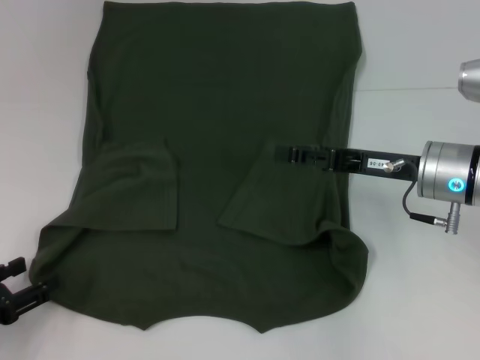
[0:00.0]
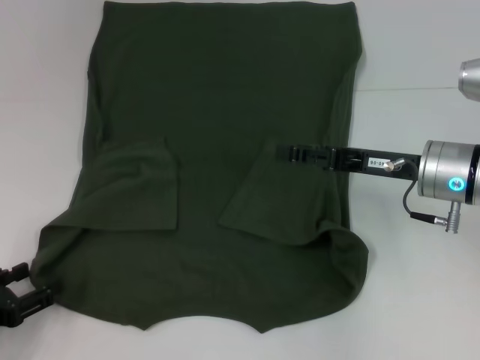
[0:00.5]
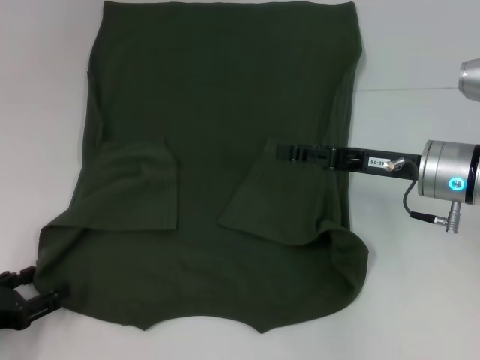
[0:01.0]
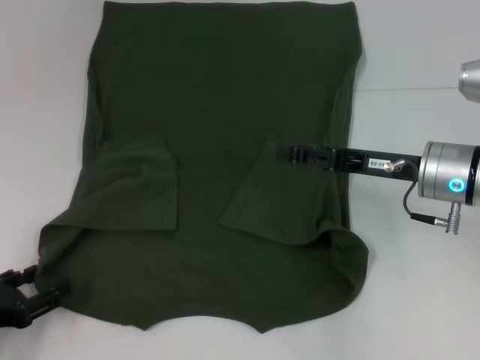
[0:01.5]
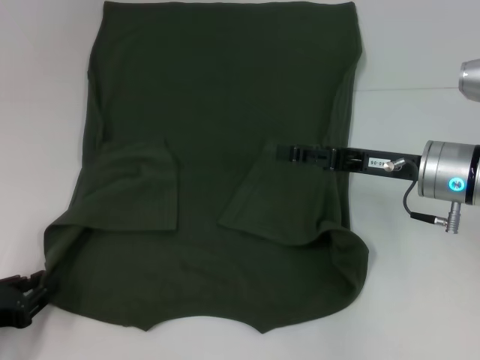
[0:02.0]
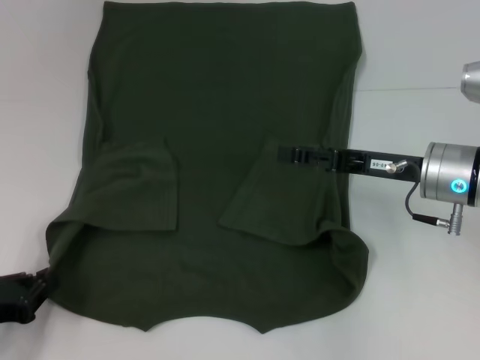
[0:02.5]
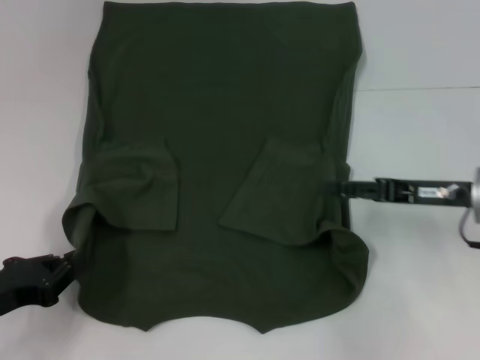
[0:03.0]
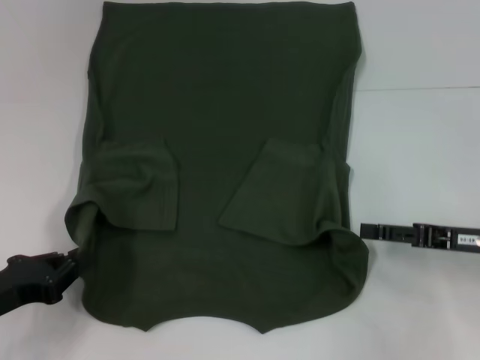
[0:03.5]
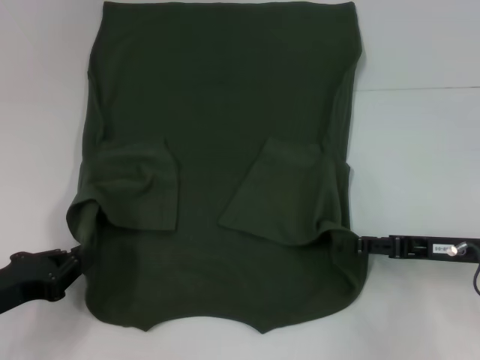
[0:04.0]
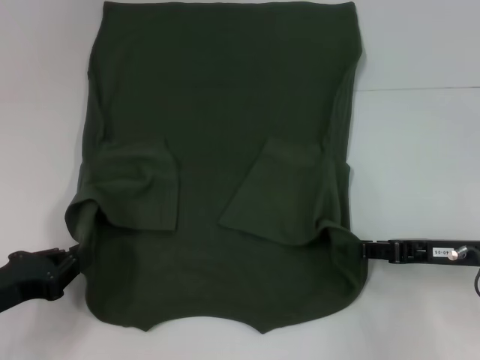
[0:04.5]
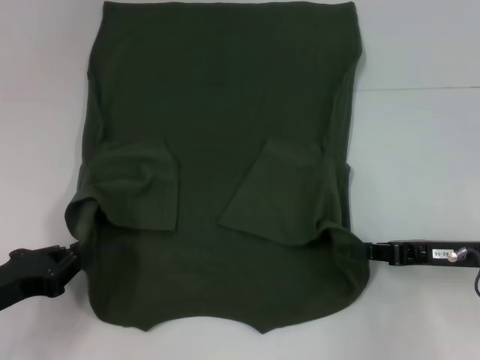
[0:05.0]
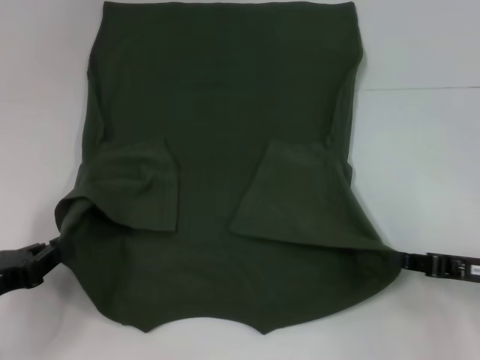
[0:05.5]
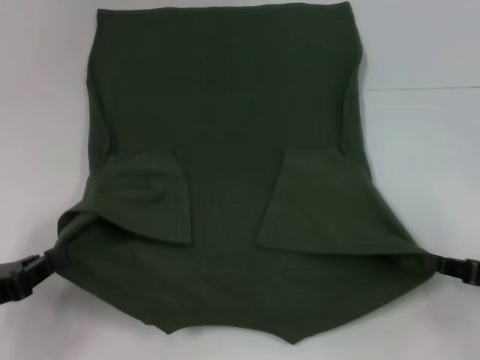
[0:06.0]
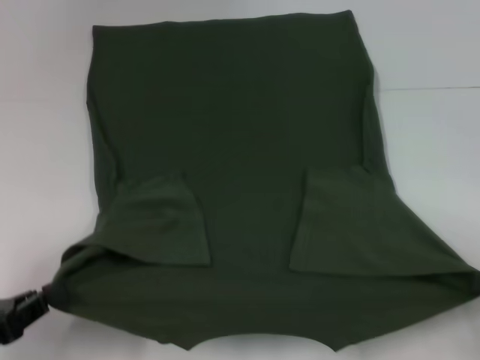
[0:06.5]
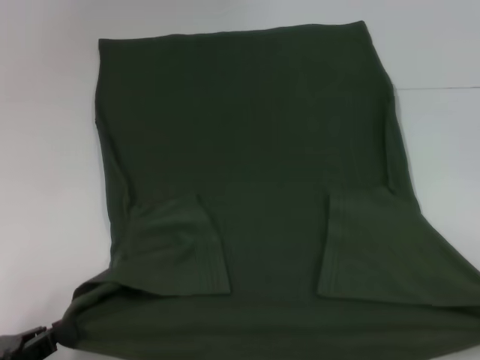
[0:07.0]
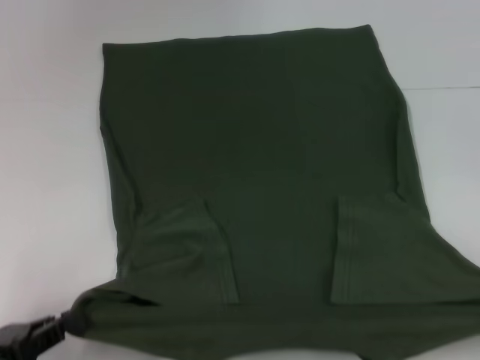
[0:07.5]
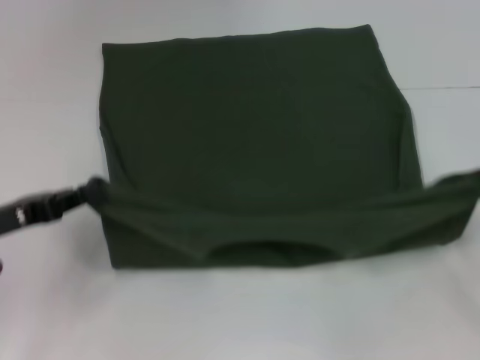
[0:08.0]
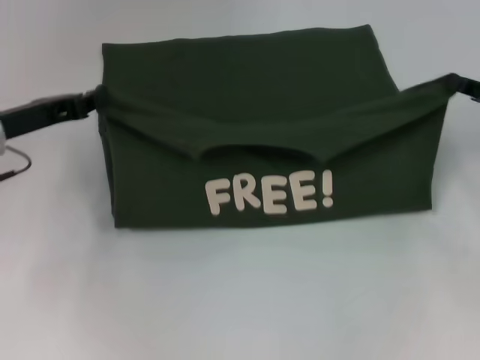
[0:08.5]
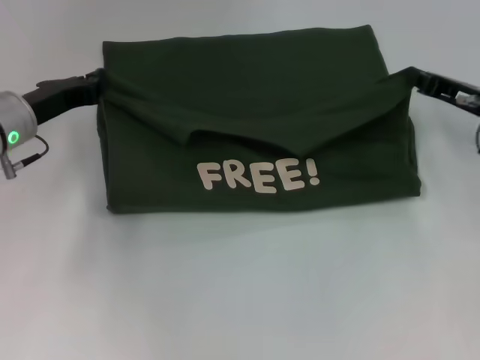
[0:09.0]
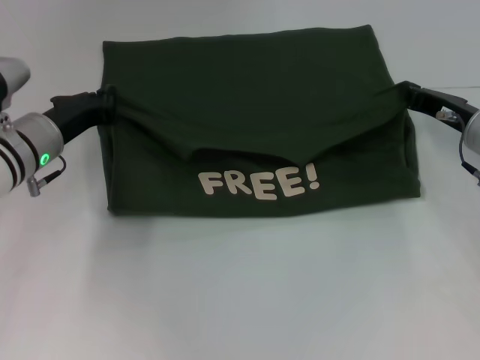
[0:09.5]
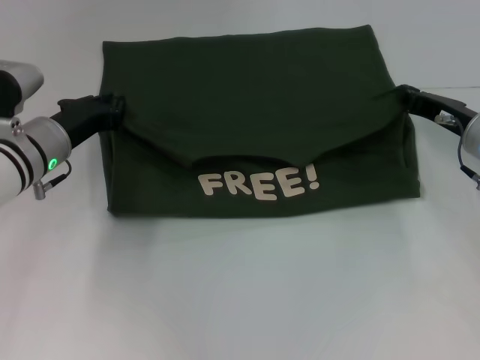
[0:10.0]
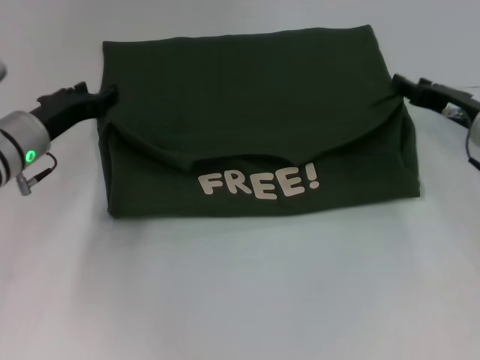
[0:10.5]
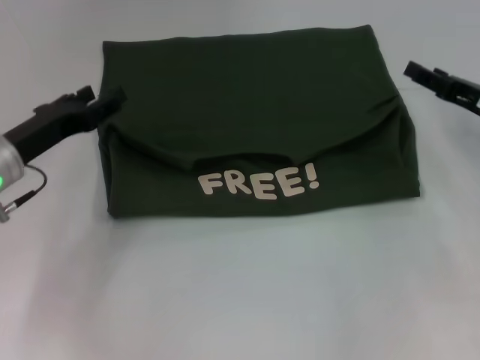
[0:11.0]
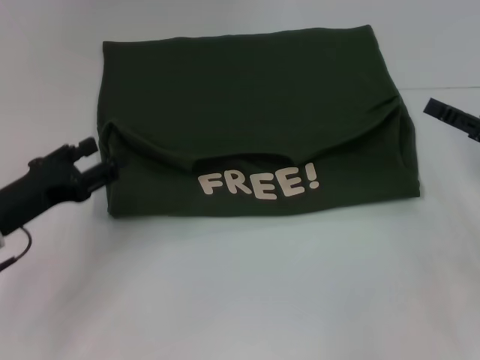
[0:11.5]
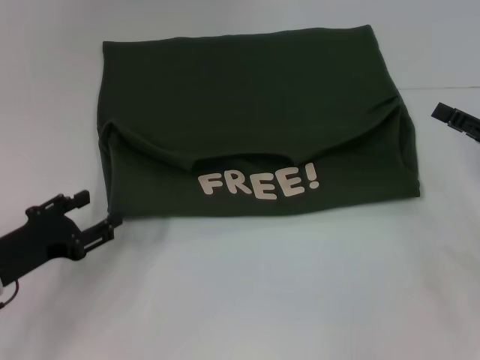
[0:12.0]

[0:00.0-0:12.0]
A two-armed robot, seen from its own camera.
Step, 0:00.0 to 0:02.5: Grab the bottom left corner with your left hand.
Step, 0:03.0 to 0:05.0: Grab the bottom right corner with your right hand.
Step, 0:05.5 to 0:10.5: Fold the clothes with your left hand.
Step, 0:05.5 to 0:10.5: Fold the clothes with your right hand.
0:00.0 to 0:02.0: The left gripper closes its fingers.
0:02.0 to 0:04.0: The left gripper closes its fingers. The right gripper goes roughly 10 cm to the right and backward.
0:04.0 to 0:06.0: The right gripper is displaced to the right and backward by about 10 cm, and closes up.
0:06.0 to 0:08.0: The left gripper shifts some 5 cm forward. The right gripper goes backward and returns, some 10 cm each way.
0:08.0 to 0:10.0: The left gripper goes roughly 15 cm forward and to the right, while the right gripper shifts approximately 20 cm forward and to the left.
0:10.0 to 0:12.0: The left gripper moves backward and to the left, roughly 15 cm, and opens its fingers. The right gripper moves backward and to the right, approximately 10 cm, and opens its fingers.

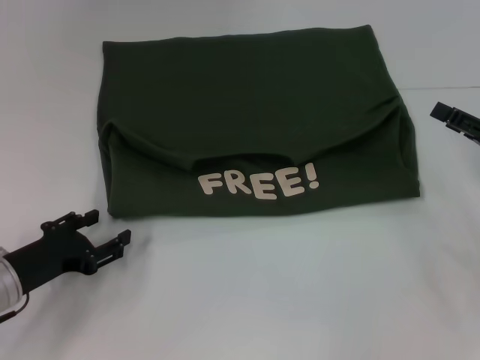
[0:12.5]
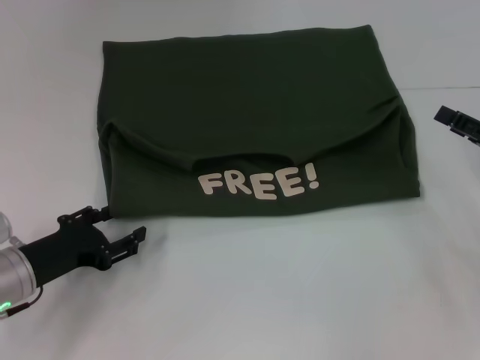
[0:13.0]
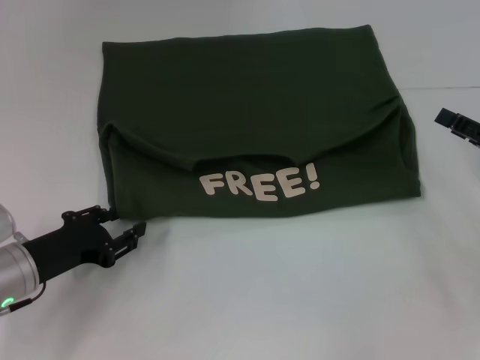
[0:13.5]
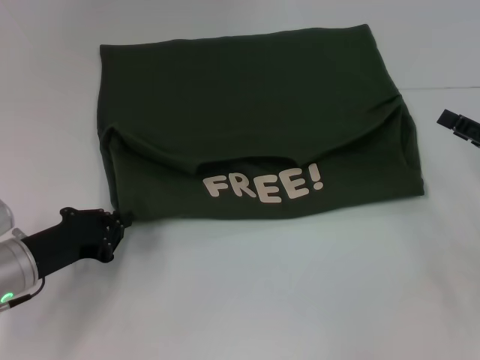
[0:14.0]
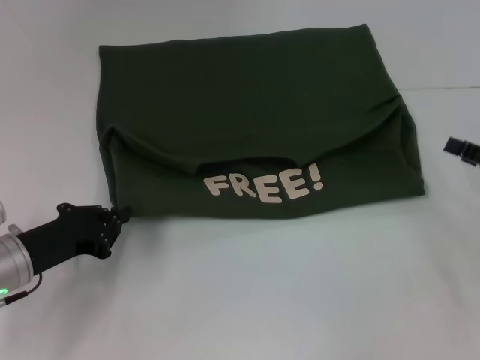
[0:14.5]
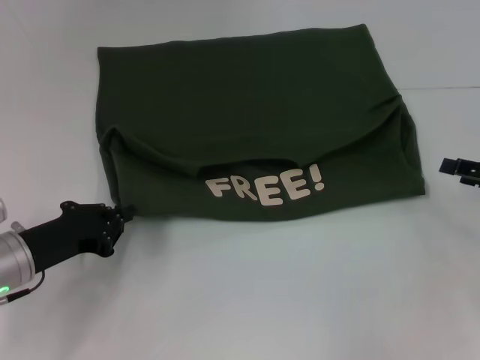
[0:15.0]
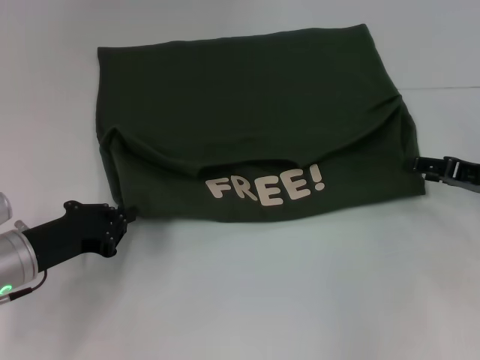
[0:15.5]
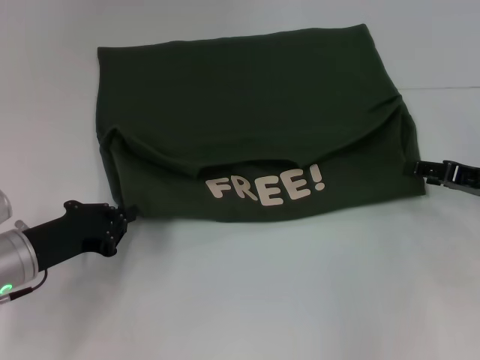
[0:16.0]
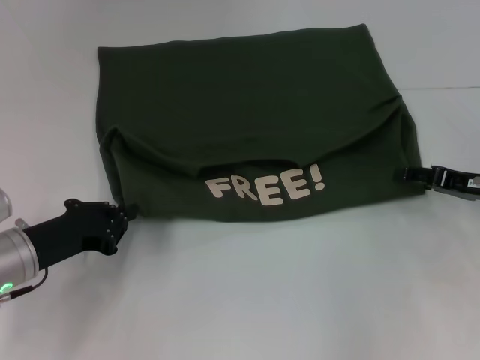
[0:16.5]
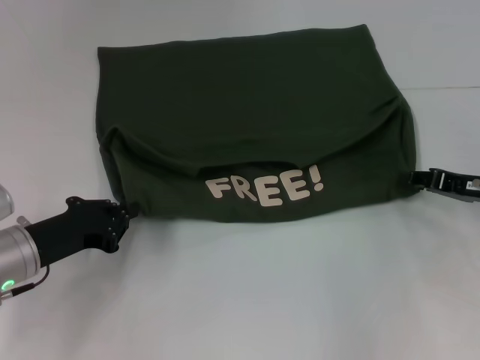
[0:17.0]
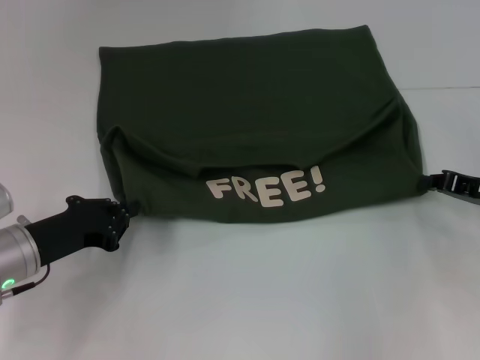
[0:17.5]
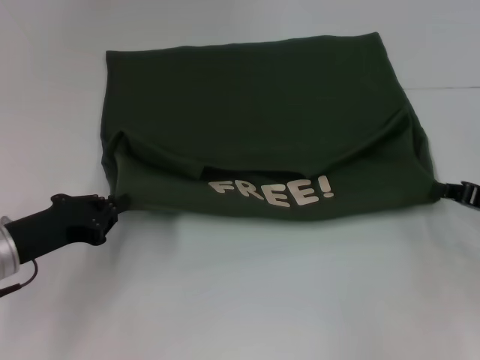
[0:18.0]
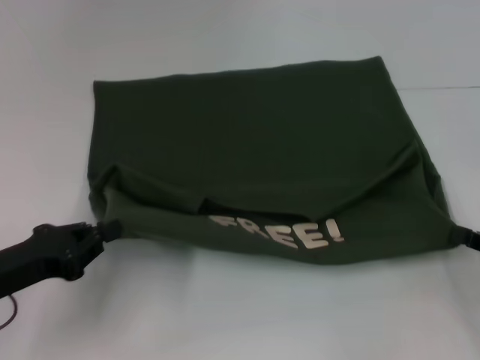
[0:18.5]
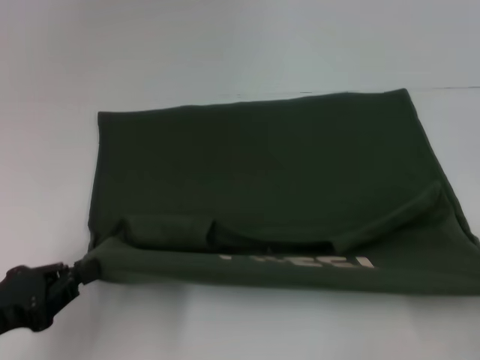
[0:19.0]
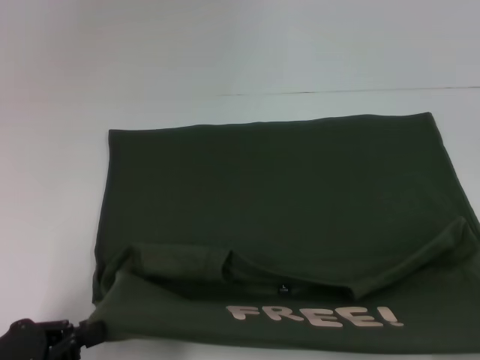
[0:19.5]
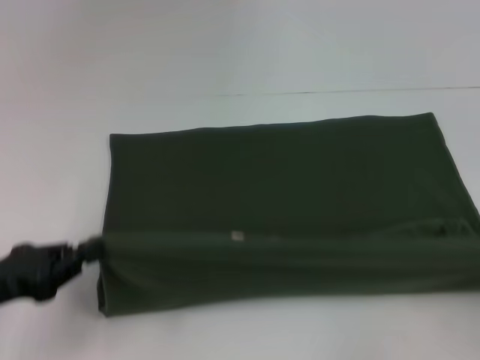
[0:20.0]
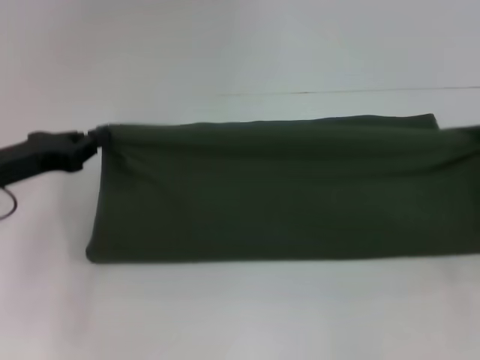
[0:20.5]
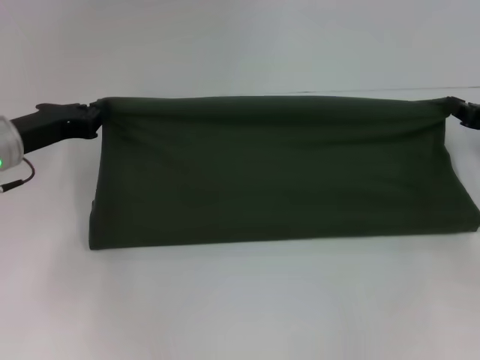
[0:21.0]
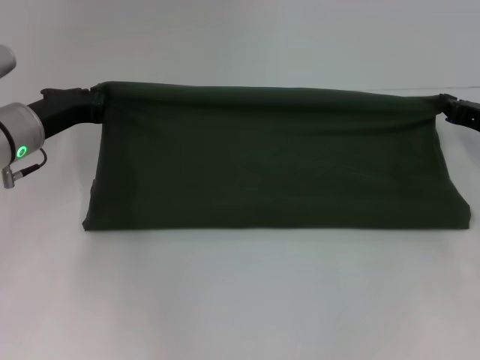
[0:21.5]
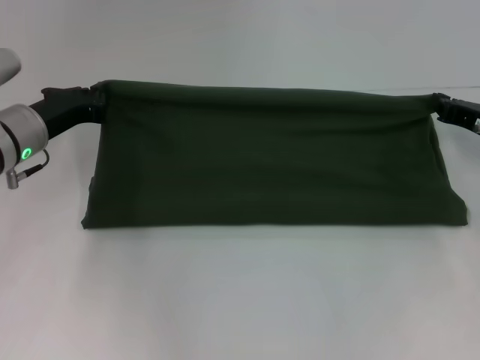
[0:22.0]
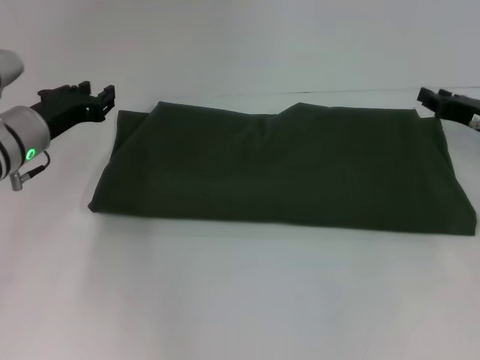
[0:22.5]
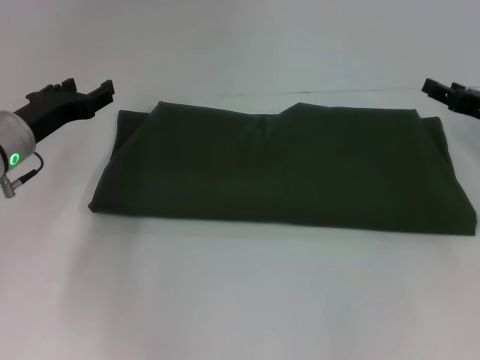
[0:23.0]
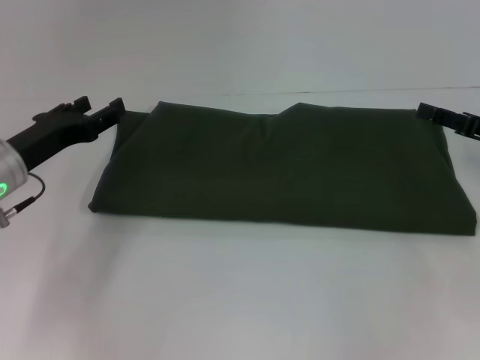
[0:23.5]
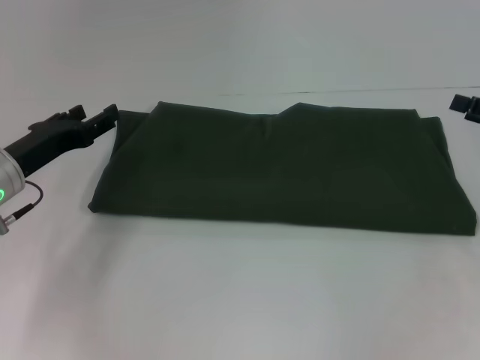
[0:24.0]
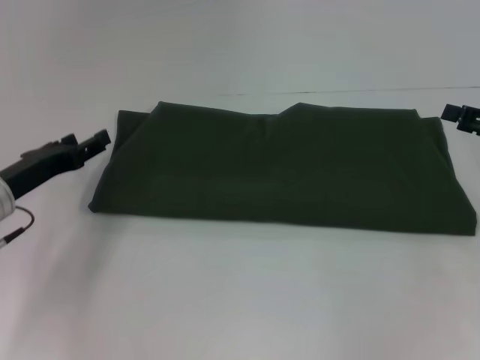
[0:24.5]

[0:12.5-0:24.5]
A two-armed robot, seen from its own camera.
Step, 0:12.5 to 0:18.5: Pull the clothes with your left hand.
Step, 0:12.5 to 0:18.5: Pull the clothes with your right hand.
Step, 0:19.0 to 0:22.5: Fold the clothes with your right hand.
0:12.5 to 0:14.5: The left gripper closes.
0:14.5 to 0:16.5: The right gripper moves about 5 cm.
0:16.5 to 0:18.5: The right gripper heads backward, covering some 10 cm, and closes its fingers. The left gripper shifts some 5 cm backward.
0:18.5 to 0:20.5: The right gripper moves roughly 15 cm backward and comes back. The left gripper goes roughly 10 cm forward.
0:20.5 to 0:22.5: The right gripper travels forward and to the left by roughly 10 cm, while the left gripper travels forward by approximately 5 cm.
0:22.5 to 0:24.5: The right gripper travels to the right and backward by approximately 5 cm, and opens up. The left gripper heads backward, covering roughly 5 cm, and opens its fingers.

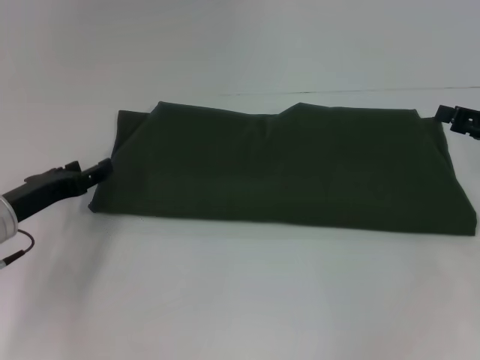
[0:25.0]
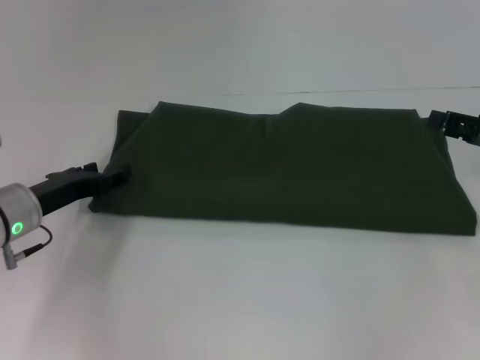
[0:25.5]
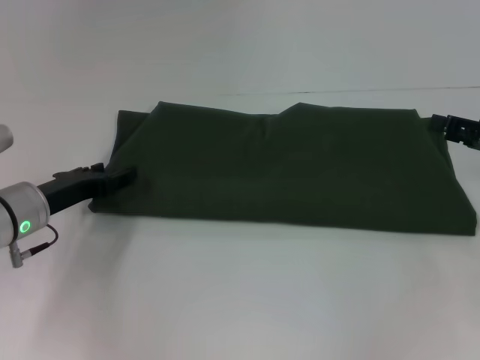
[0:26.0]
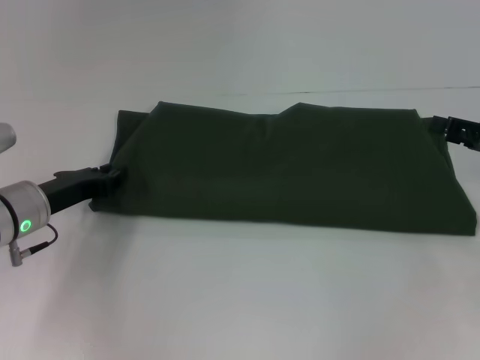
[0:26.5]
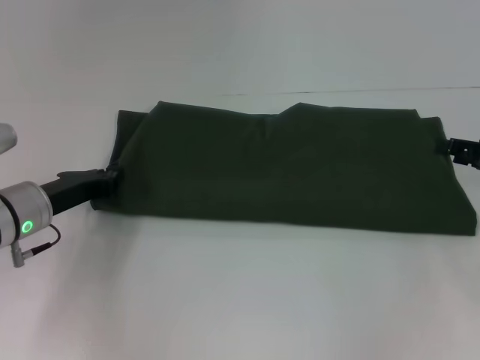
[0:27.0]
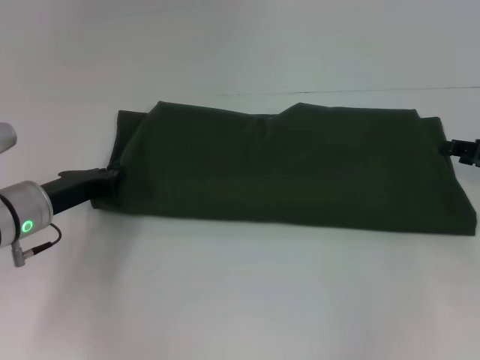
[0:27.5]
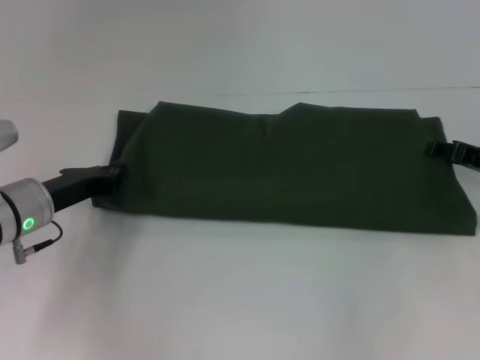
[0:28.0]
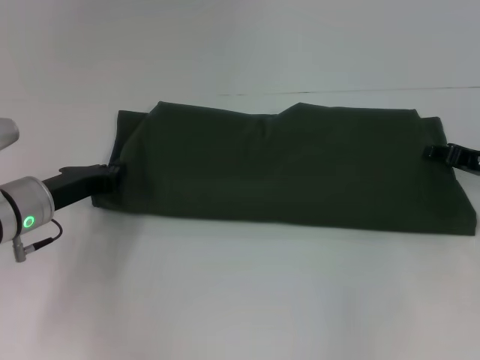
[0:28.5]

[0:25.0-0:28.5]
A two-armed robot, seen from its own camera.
0:25.0 to 0:27.0: The left gripper closes up.
